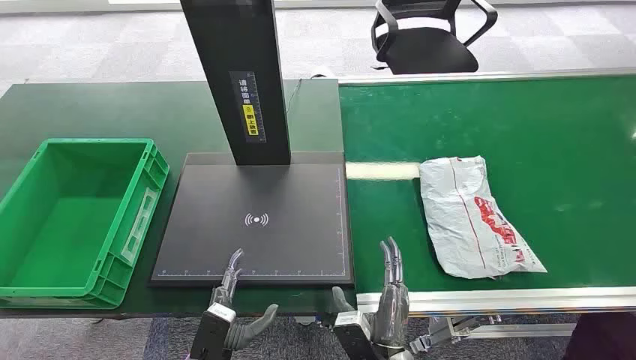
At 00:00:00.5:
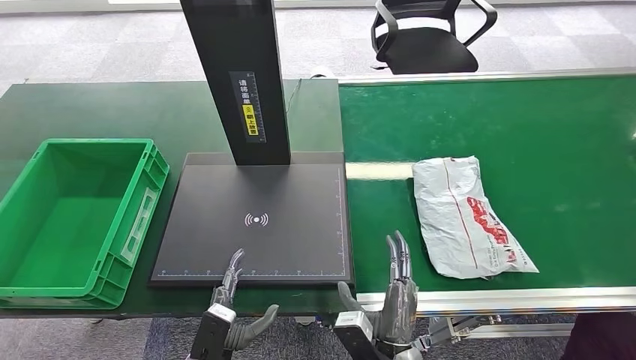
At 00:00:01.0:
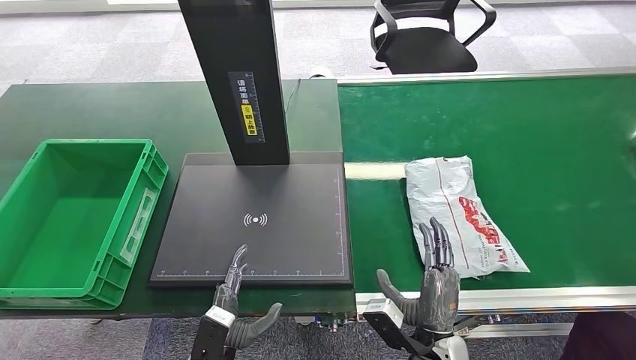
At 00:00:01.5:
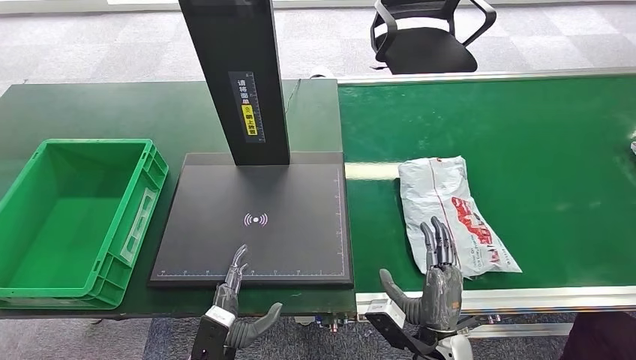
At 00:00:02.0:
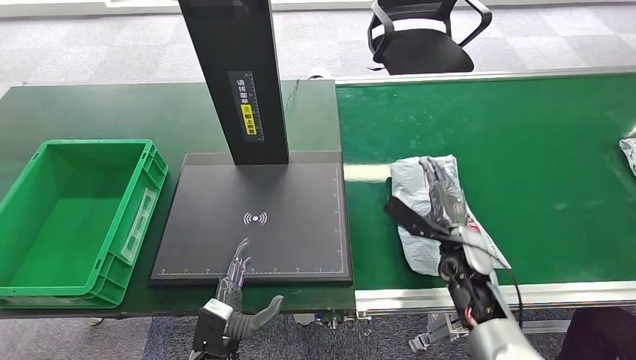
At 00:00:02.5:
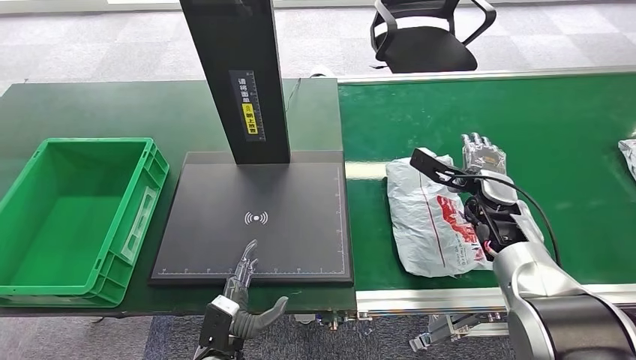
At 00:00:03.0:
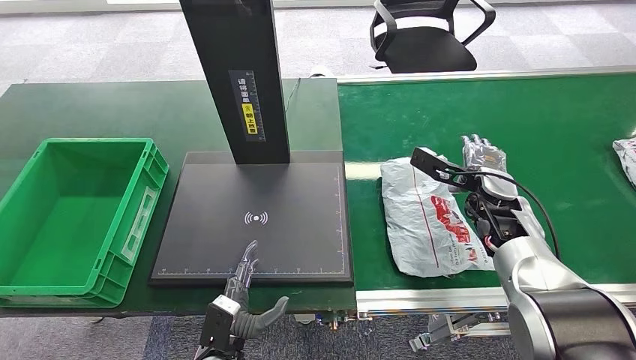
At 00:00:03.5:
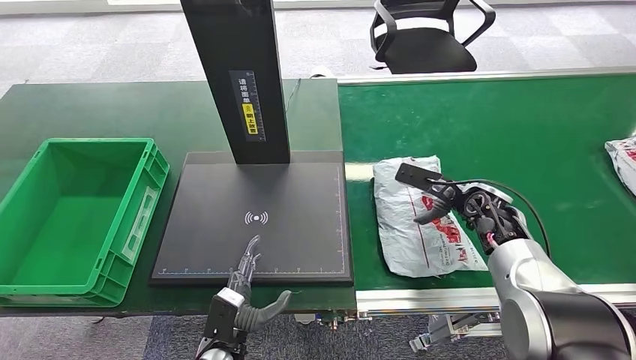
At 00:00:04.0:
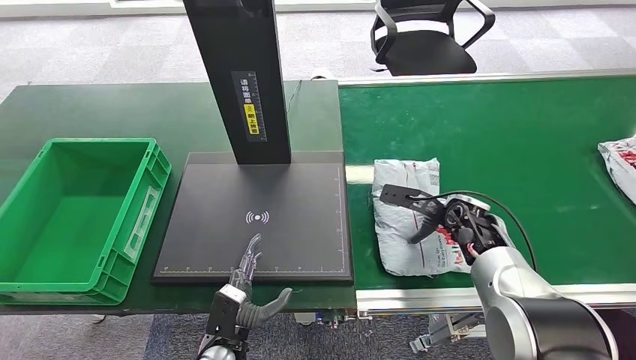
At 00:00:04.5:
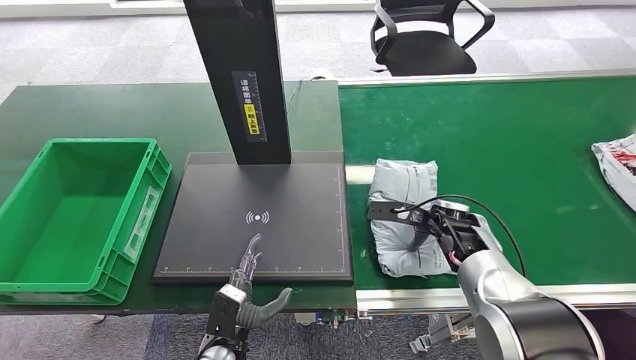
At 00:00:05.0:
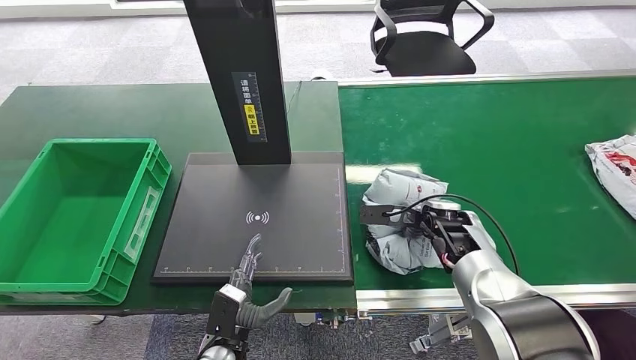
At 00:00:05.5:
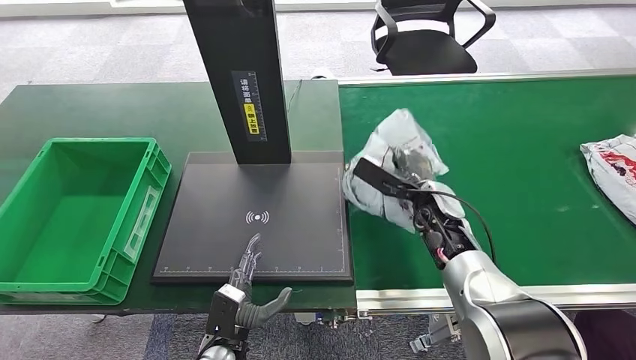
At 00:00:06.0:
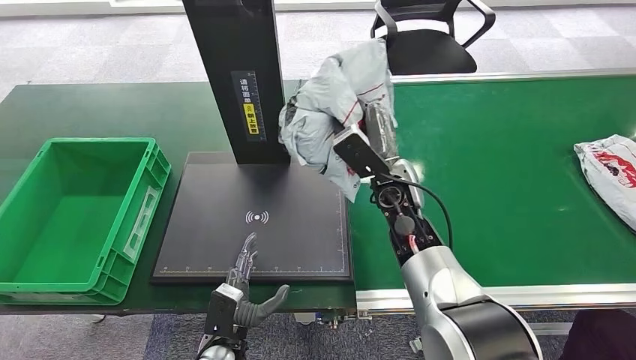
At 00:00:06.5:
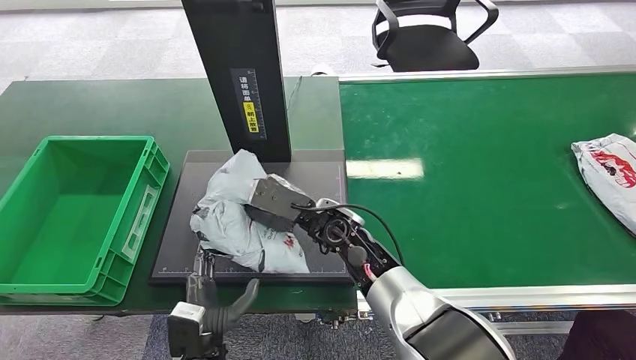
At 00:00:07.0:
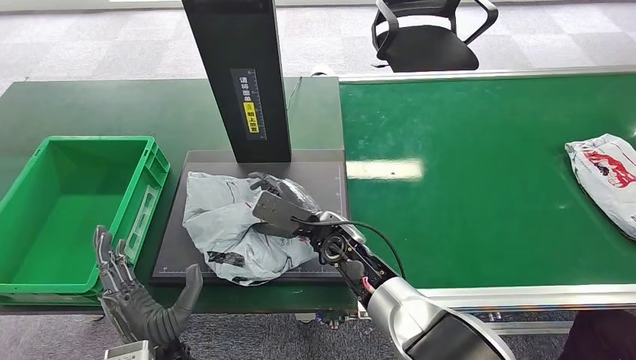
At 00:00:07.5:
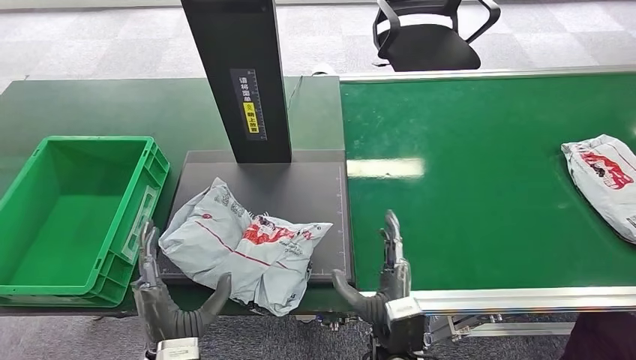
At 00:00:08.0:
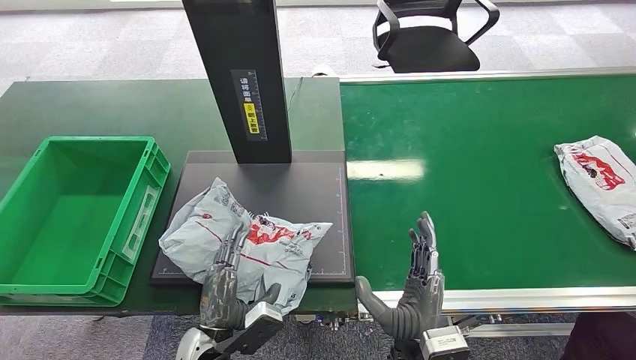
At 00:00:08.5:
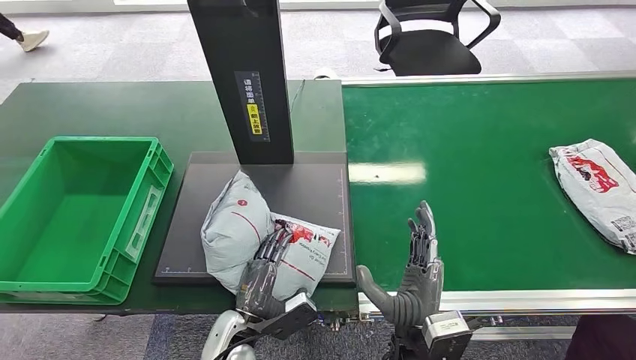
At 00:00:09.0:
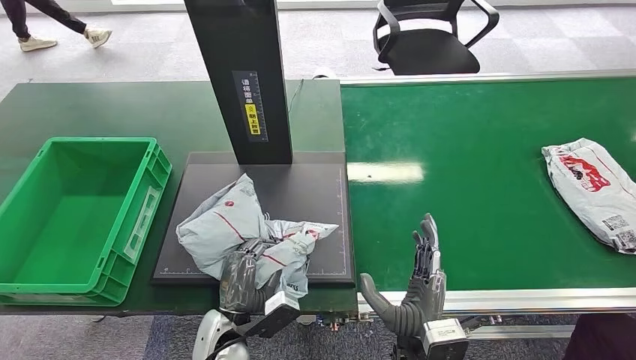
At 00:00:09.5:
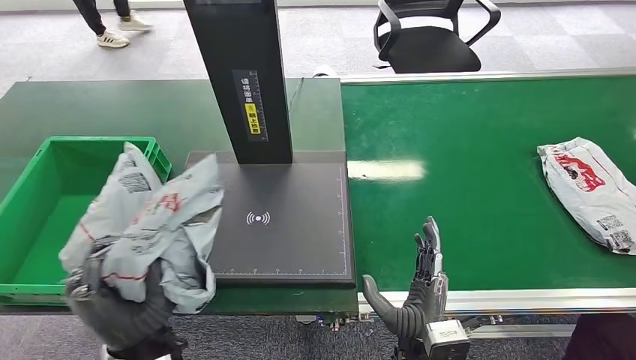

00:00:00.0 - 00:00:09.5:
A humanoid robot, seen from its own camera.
Step, 00:00:00.0 - 00:00:05.5: Pick up the package from the conveyor belt.
Step, 00:00:06.5 - 00:00:08.0: Place the package onto the inbound machine.
00:00:02.0 - 00:00:04.0: The right hand is displaced forward by approximately 5 cm.
00:00:04.0 - 00:00:05.5: The right hand shifts roughly 5 cm to the left.

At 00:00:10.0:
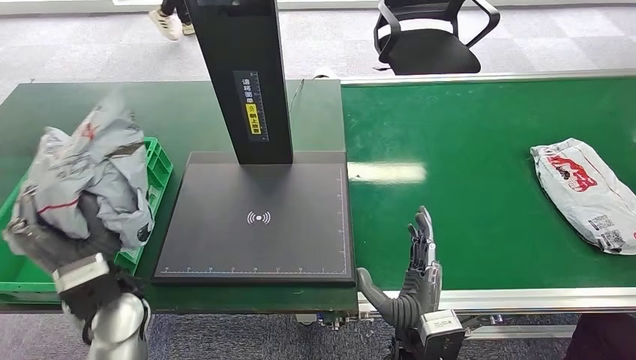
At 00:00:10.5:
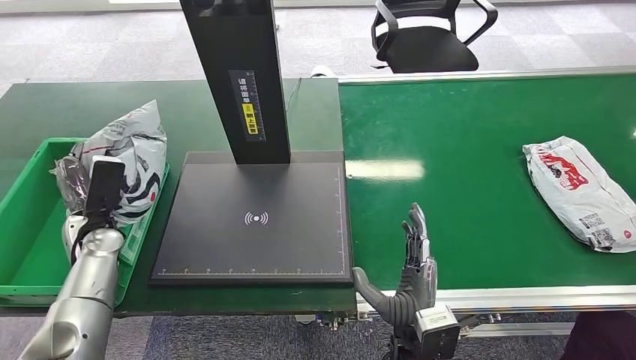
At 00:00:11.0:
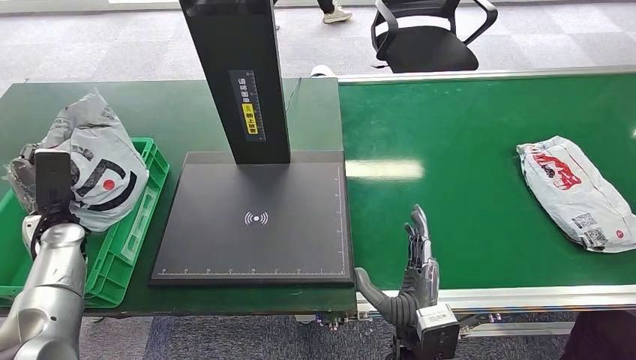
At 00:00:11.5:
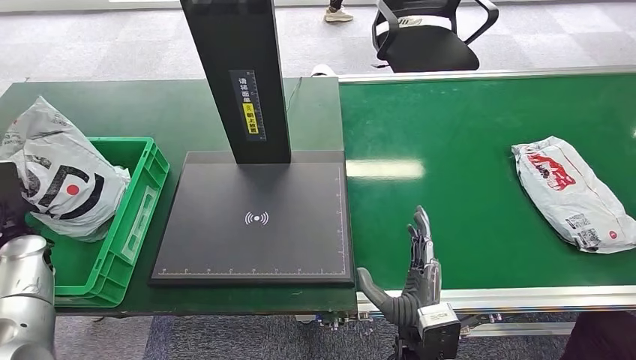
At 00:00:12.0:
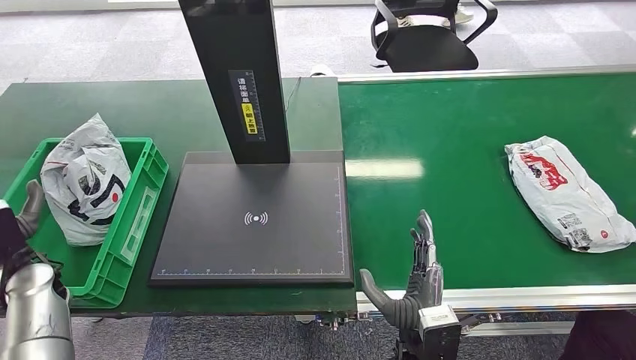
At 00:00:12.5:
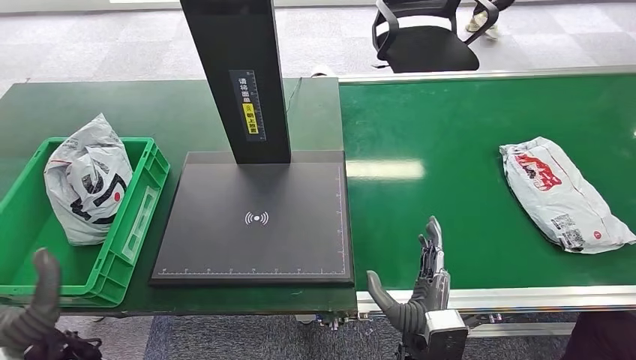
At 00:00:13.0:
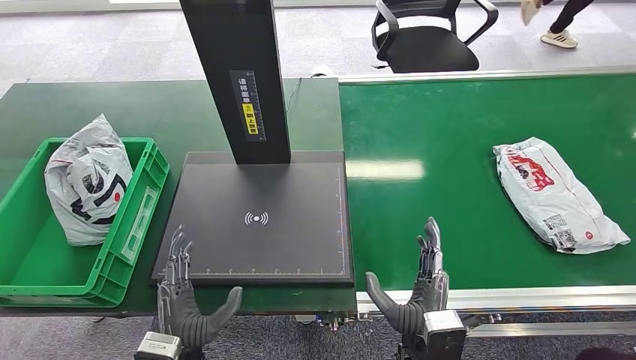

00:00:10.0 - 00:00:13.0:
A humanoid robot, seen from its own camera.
Step, 00:00:10.5 - 00:00:13.0: Place the package into the parcel locker.
00:00:11.5 - 00:00:13.0: The left hand goes about 35 cm to the right and backward.

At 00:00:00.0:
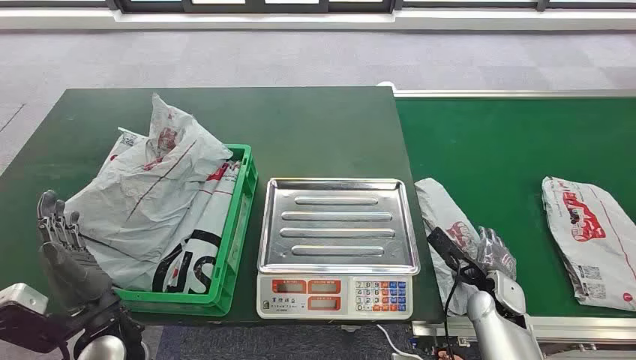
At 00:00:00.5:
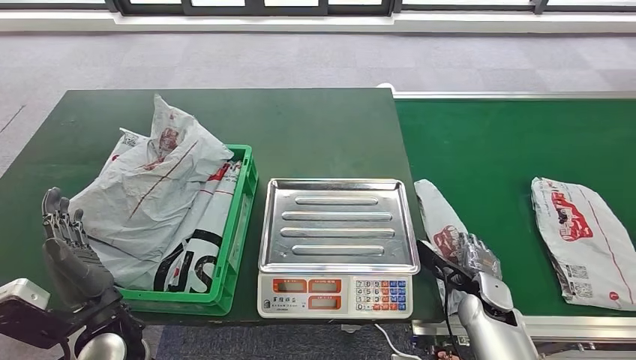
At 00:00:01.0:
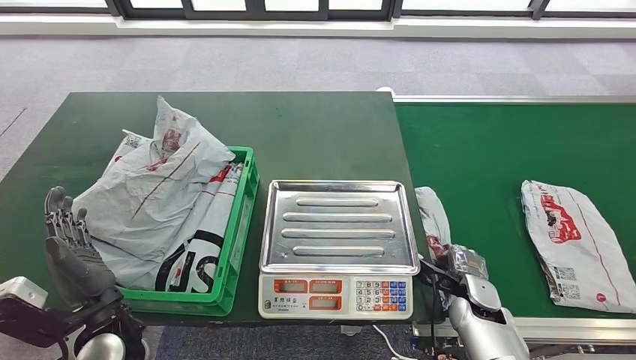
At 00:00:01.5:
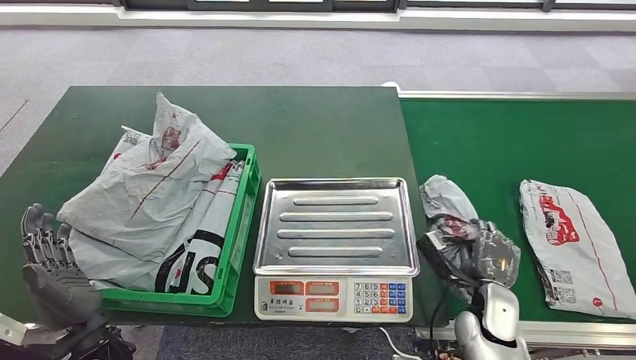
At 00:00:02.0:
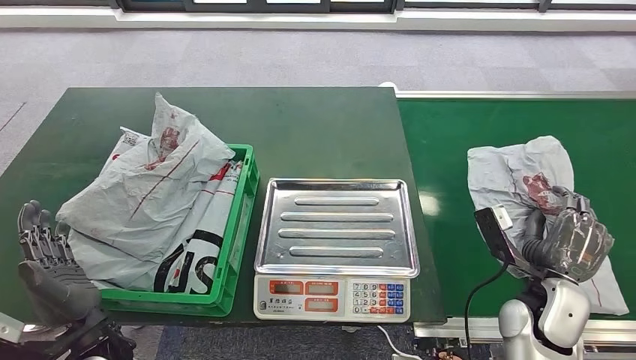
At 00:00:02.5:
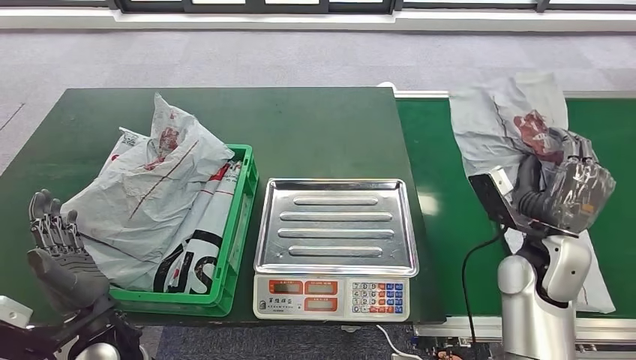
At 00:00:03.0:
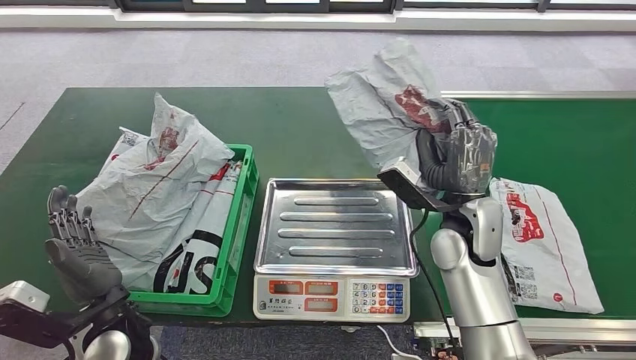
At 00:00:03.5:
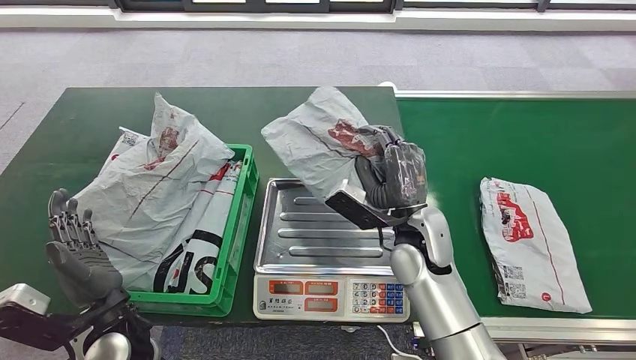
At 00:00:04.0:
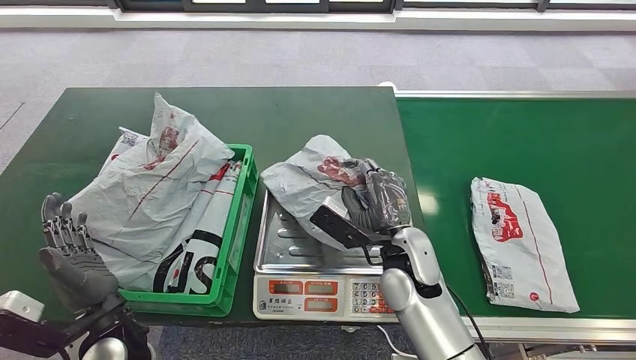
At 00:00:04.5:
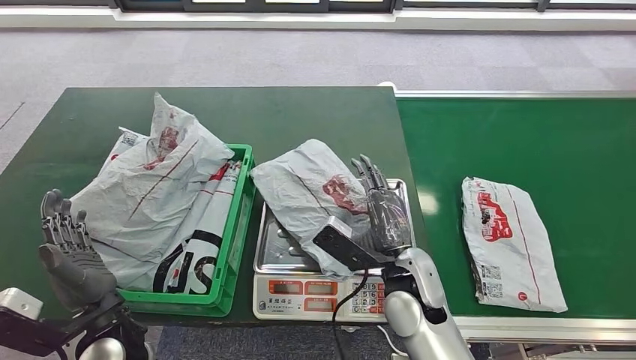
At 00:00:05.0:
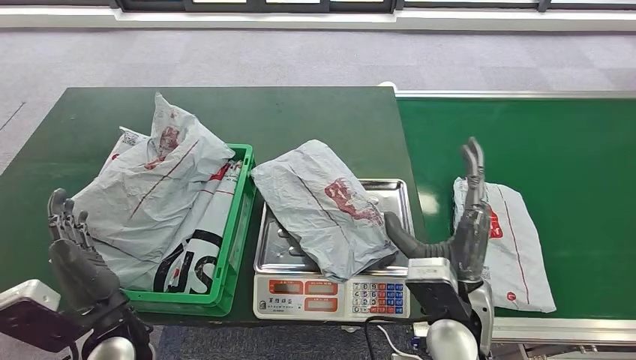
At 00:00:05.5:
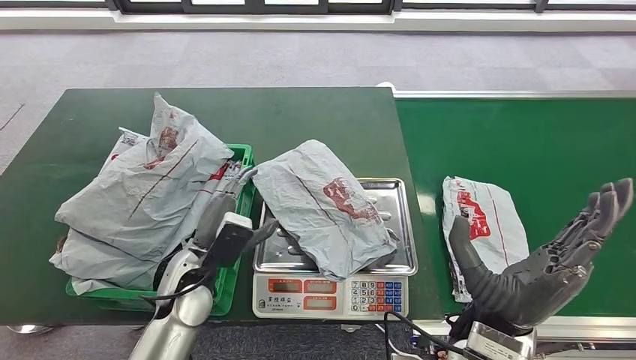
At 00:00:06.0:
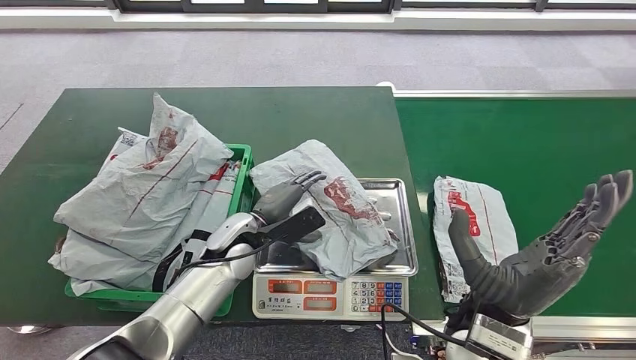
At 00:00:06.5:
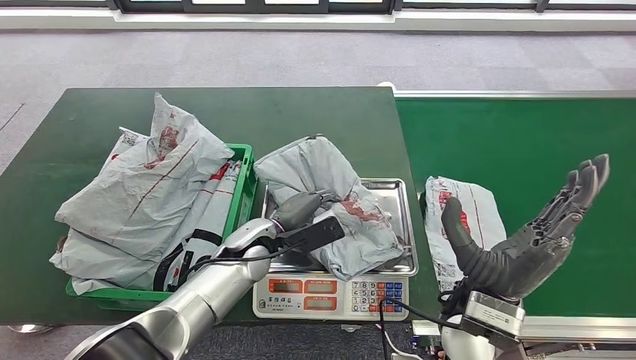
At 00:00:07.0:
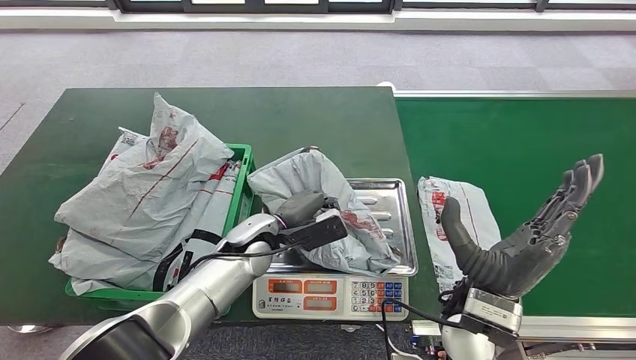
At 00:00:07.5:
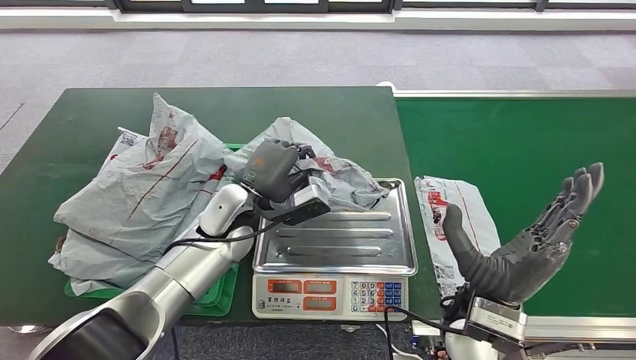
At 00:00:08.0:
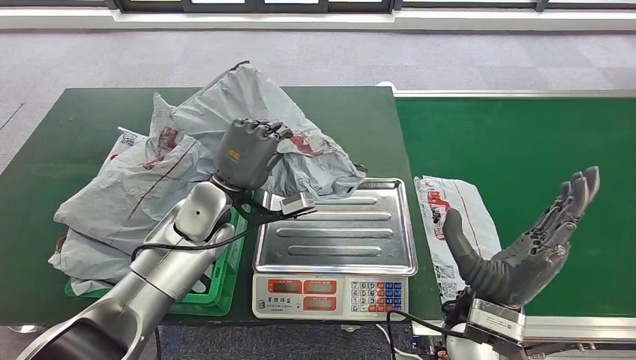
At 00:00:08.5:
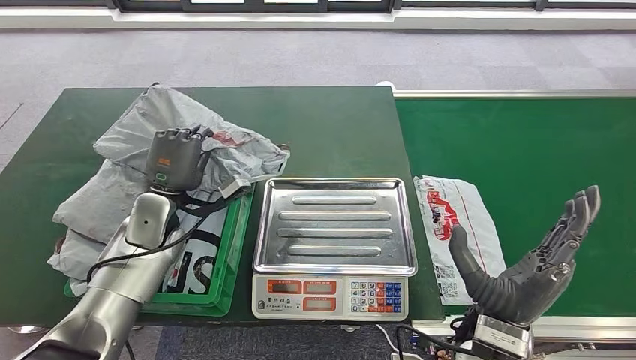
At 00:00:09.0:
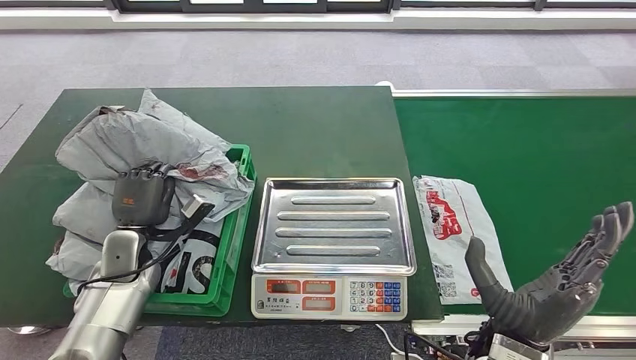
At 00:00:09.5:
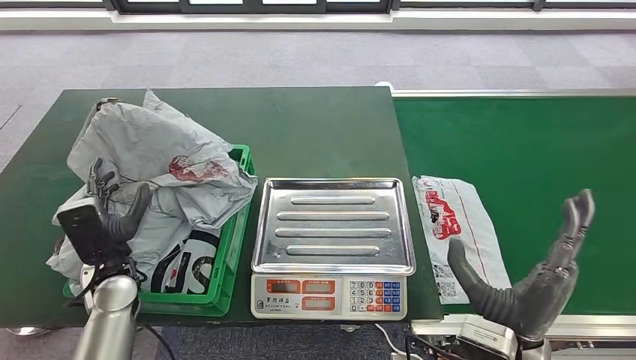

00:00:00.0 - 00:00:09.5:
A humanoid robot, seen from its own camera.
Step, 00:00:00.0 - 00:00:01.5: Pick up the package from the conveyor belt.
Step, 00:00:02.5 - 00:00:04.5: Place the package onto the inbound machine.
Step, 00:00:05.0 - 00:00:07.5: Pick up the package from the inbound machine.
Step, 00:00:08.0 - 00:00:09.5: Place the package into the parcel locker.
